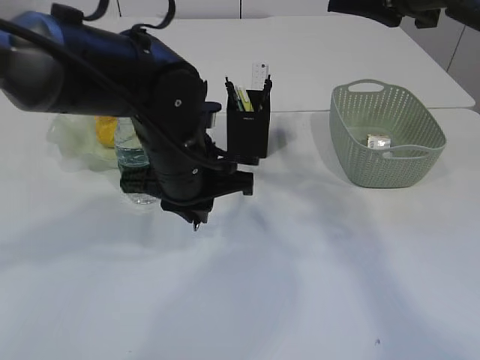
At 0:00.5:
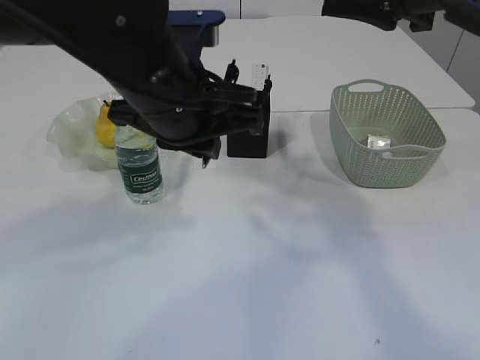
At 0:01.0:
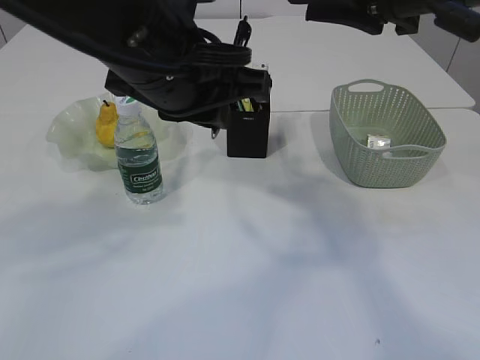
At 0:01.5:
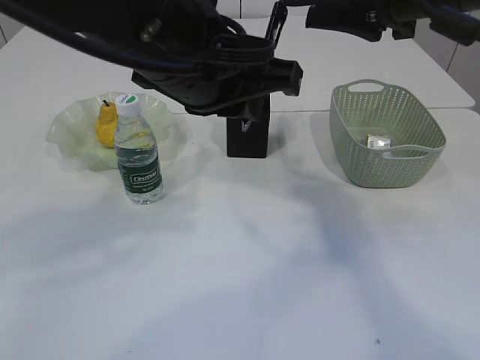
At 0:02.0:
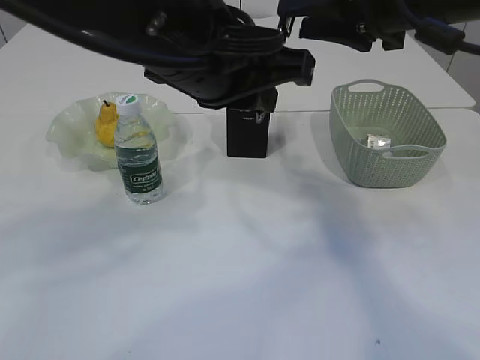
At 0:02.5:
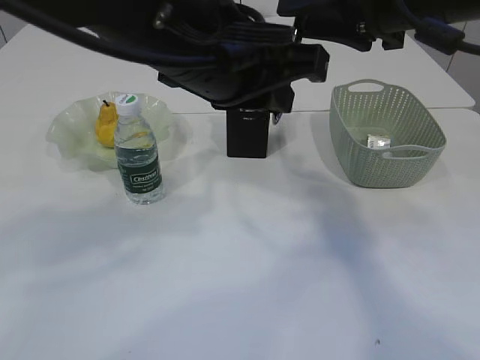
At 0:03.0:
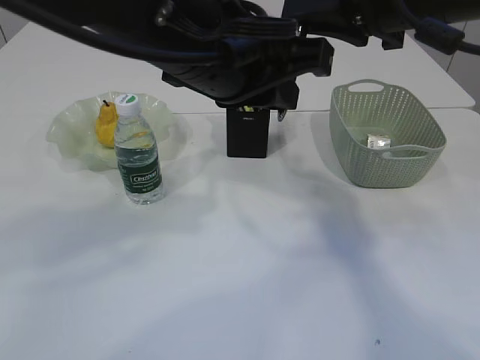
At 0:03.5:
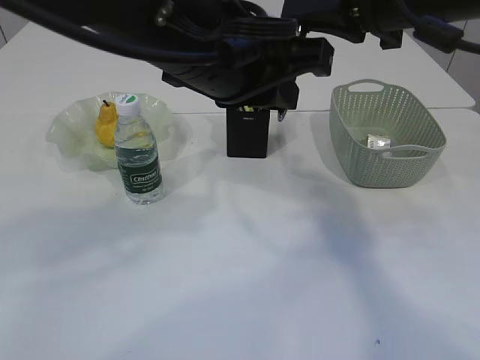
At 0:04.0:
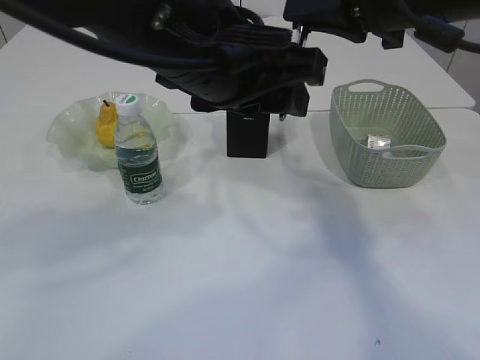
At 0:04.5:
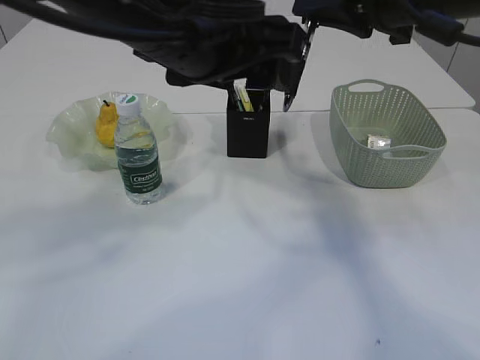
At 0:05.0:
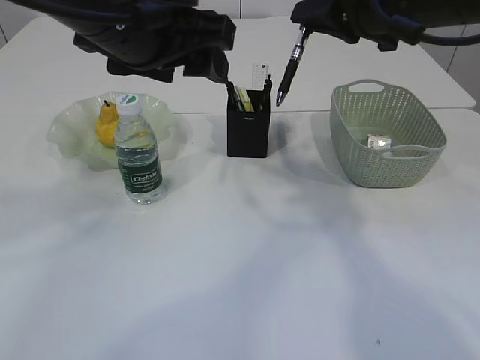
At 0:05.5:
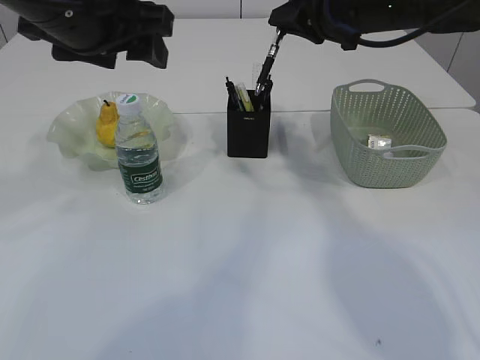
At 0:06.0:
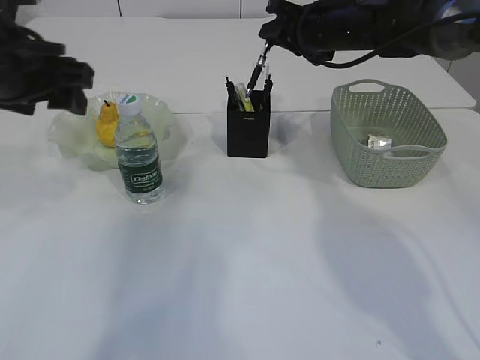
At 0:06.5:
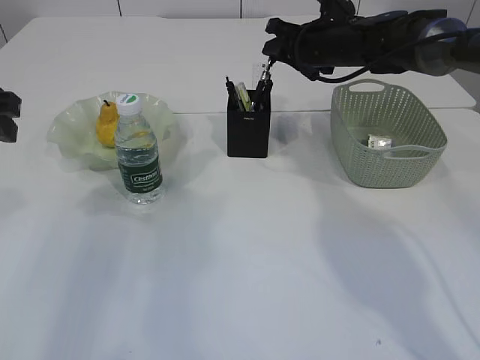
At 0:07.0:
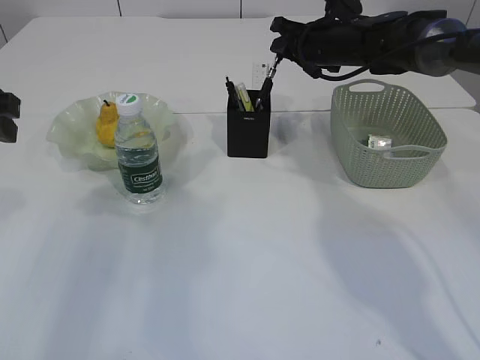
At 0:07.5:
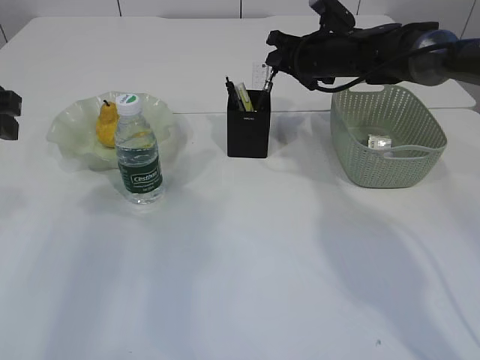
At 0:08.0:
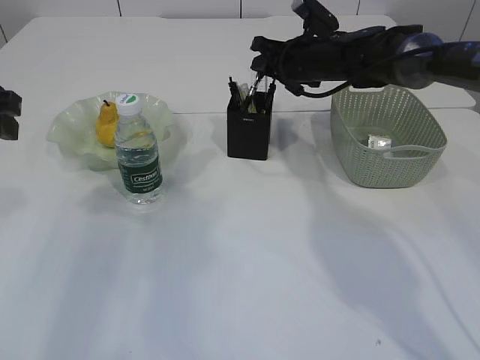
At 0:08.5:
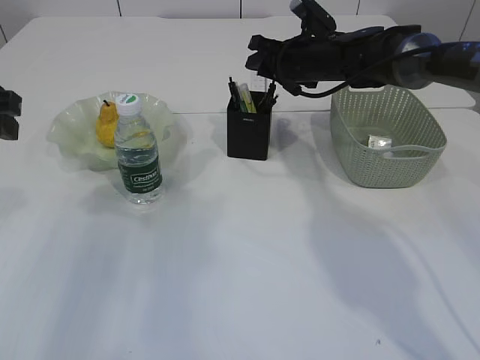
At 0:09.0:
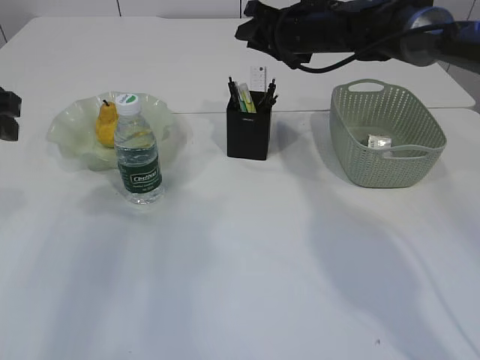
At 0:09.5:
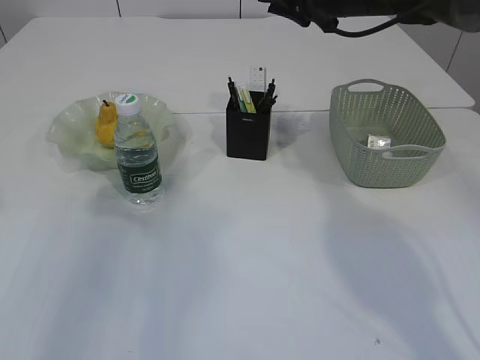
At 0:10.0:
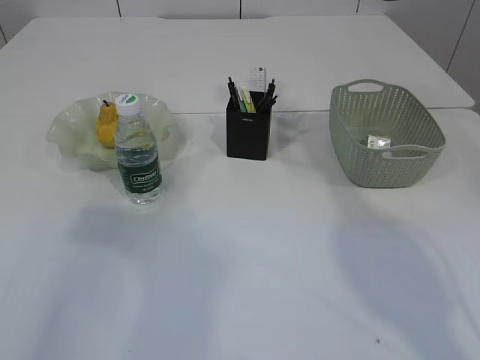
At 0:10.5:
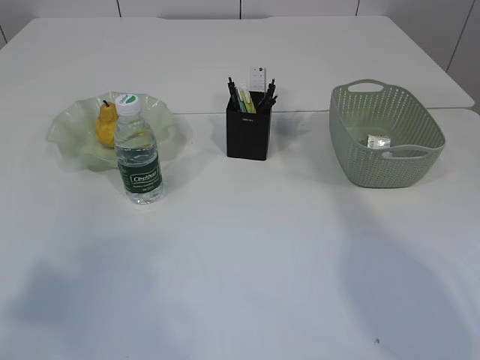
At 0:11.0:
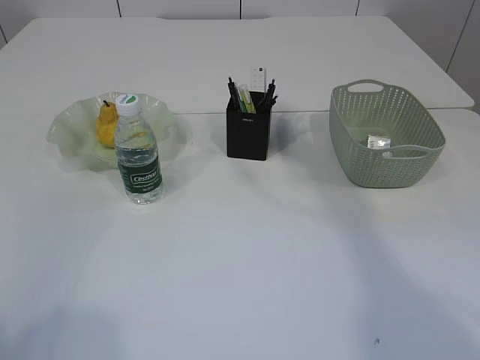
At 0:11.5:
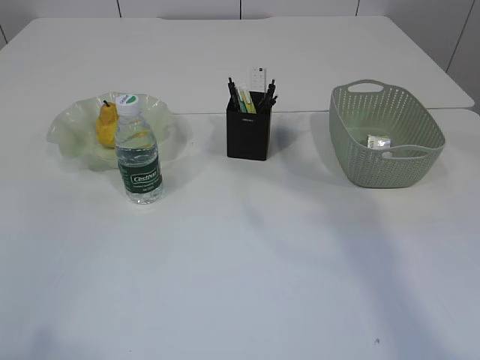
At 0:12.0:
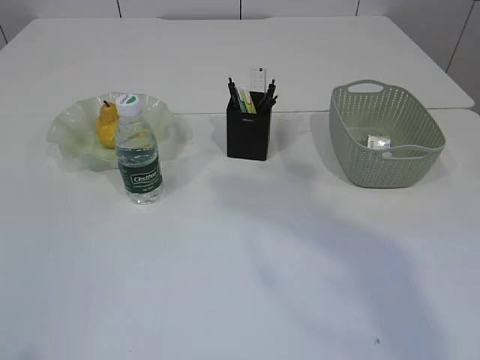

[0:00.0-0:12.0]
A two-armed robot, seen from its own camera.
Step, 0:00.0 to 0:04.0: transfer the pen to the right arm.
Step, 0:04.5 to 0:08.5: Place the pen into the pen holder.
0:00.0 to 0:02.0: The left gripper moves upward, roughly 15 cm.
0:02.0 to 0:04.0: The right gripper closes up; the left gripper opens up.
0:04.0 to 0:06.0: The right gripper moves forward and downward, some 20 cm. Meanwhile the left gripper goes some 20 cm to the left.
0:06.0 to 0:08.0: The right gripper heads downward, covering roughly 5 cm, while the left gripper travels to the left by approximately 5 cm.
0:08.0 to 0:10.0: The left gripper shifts some 10 cm backward and upward; the right gripper travels upward by some 15 cm.
0:10.0 to 0:12.0: The grippers both shift backward by roughly 25 cm.

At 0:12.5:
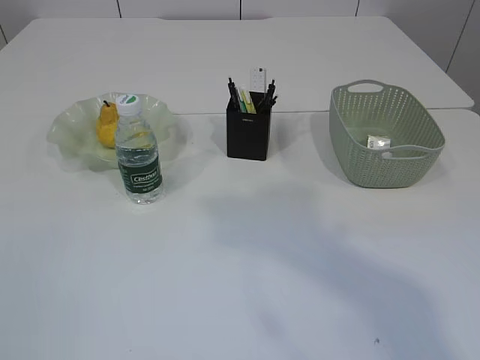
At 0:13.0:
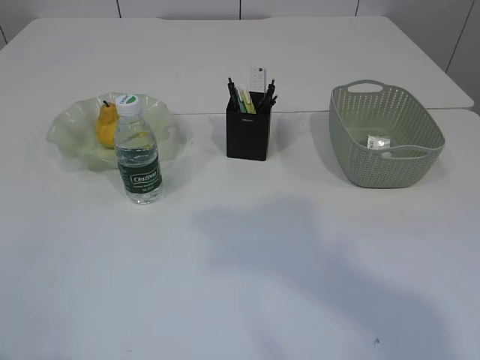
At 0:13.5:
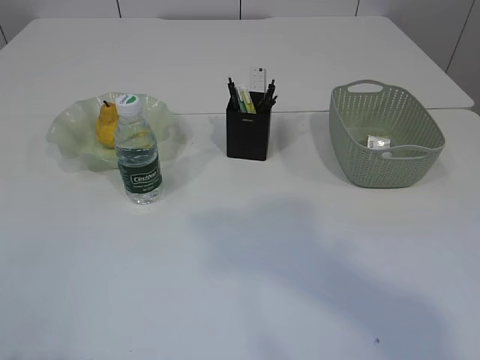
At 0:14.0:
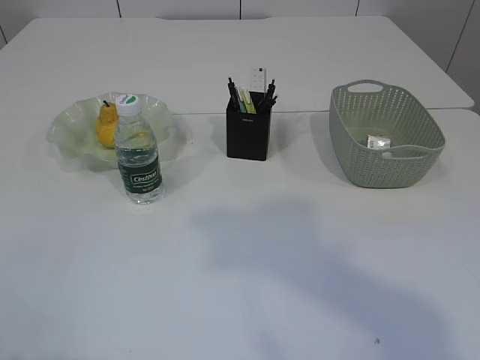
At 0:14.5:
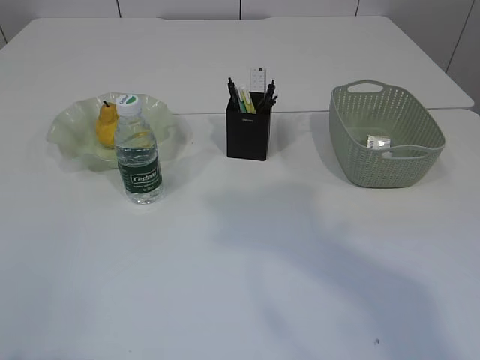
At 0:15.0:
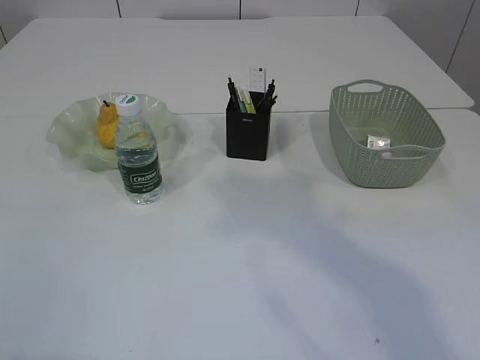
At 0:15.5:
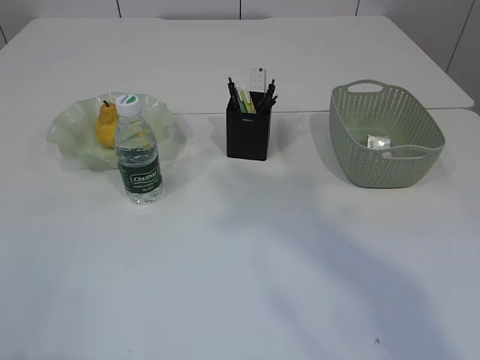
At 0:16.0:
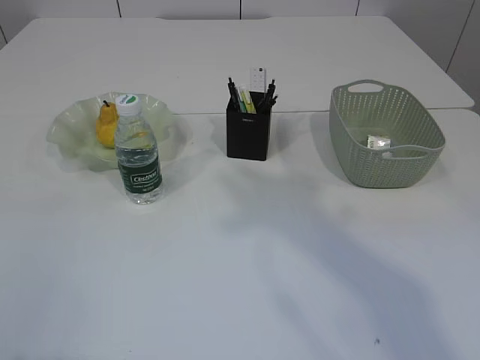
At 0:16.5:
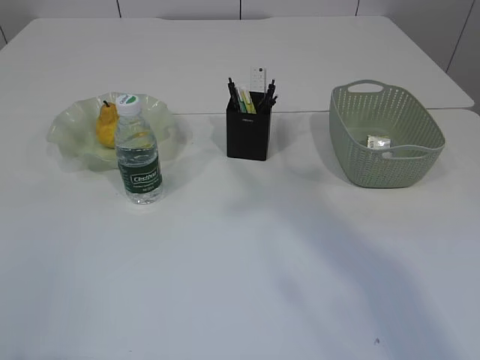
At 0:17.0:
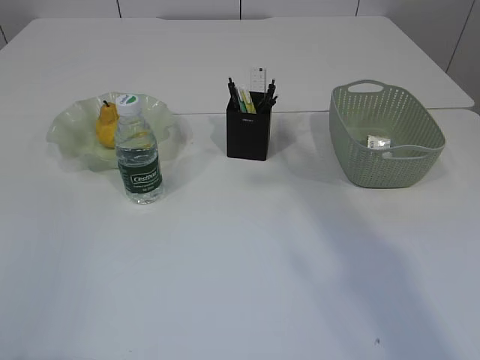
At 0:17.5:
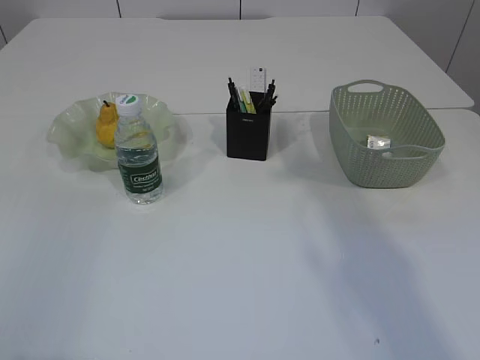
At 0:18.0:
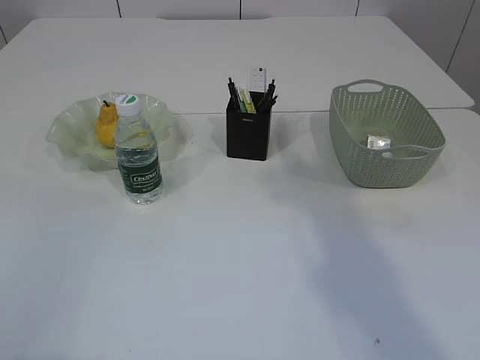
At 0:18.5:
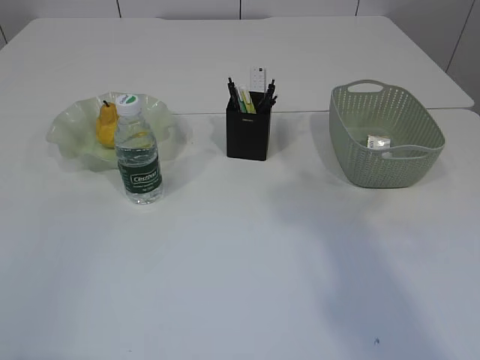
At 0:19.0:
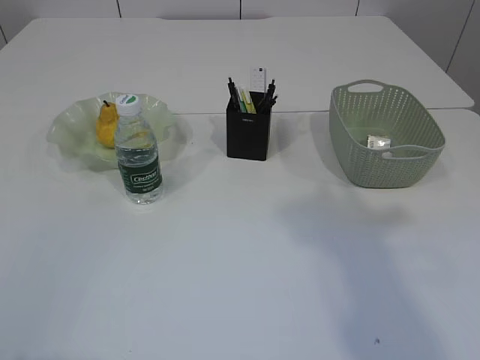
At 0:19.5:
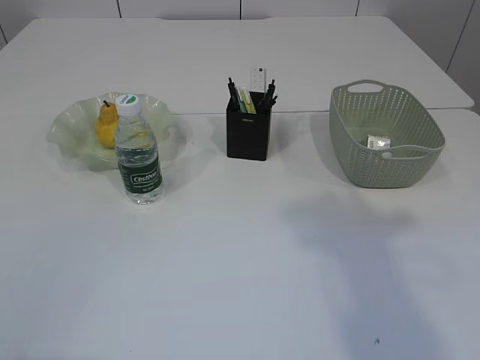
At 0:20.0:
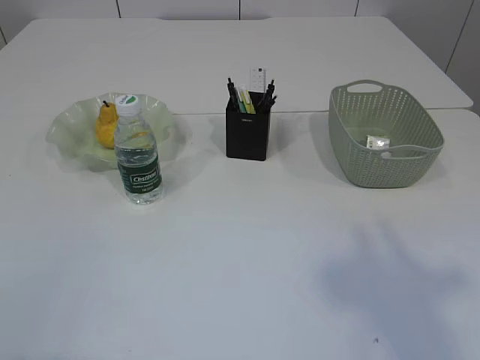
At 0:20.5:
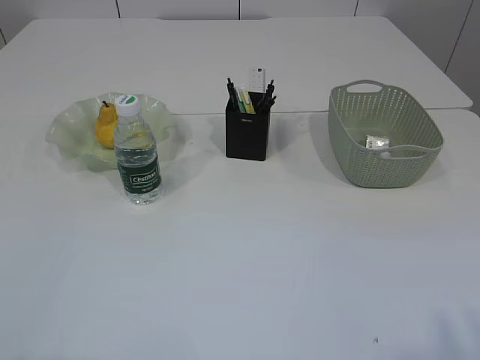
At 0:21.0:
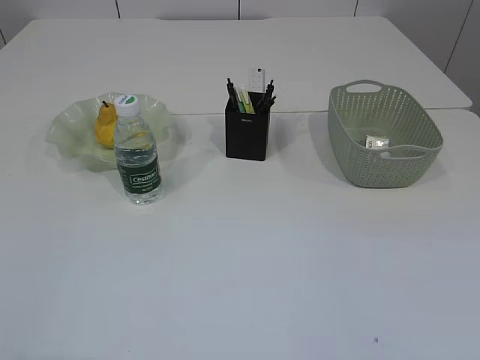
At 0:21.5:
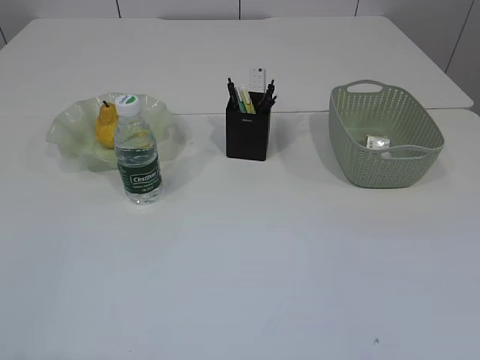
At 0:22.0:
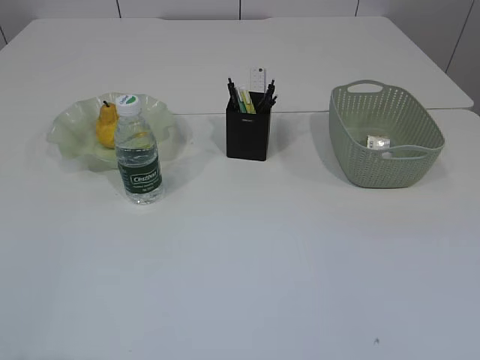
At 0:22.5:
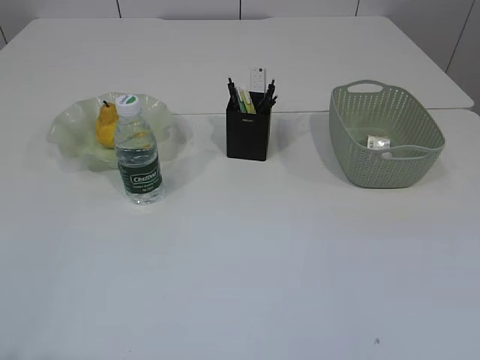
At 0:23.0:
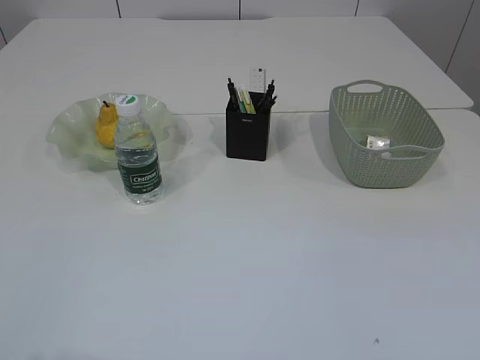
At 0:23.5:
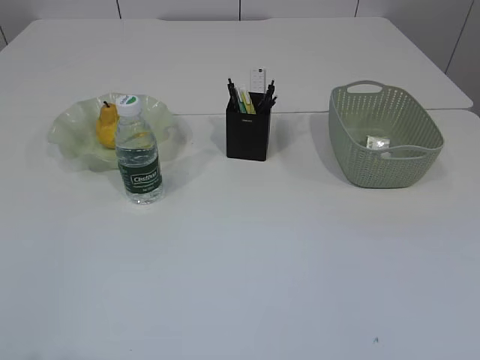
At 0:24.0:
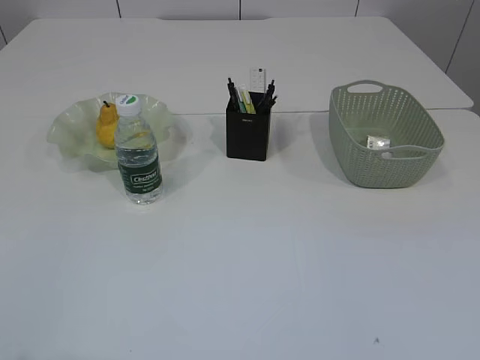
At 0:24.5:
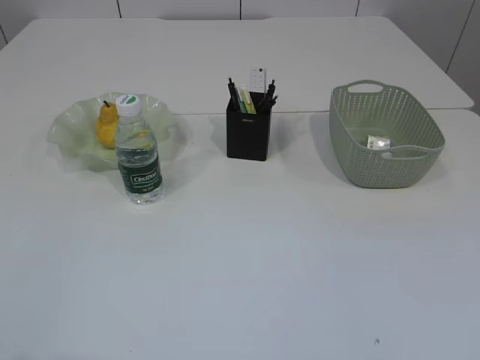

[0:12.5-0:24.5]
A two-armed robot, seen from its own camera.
0:18.5 to 0:20.5: The right gripper is displaced backward by about 20 cm.
